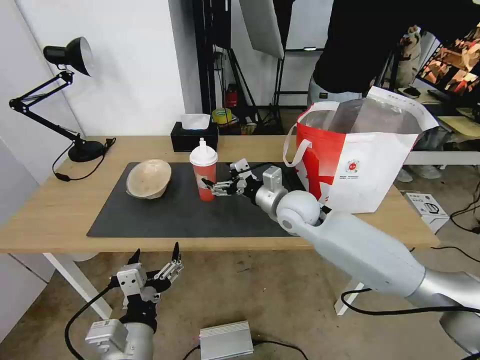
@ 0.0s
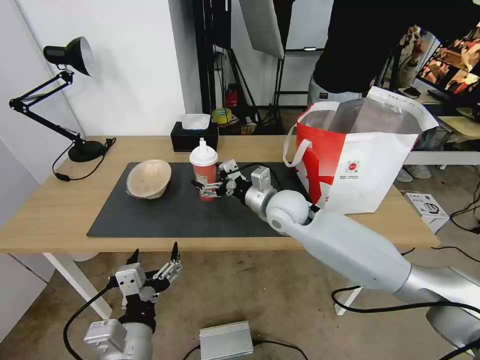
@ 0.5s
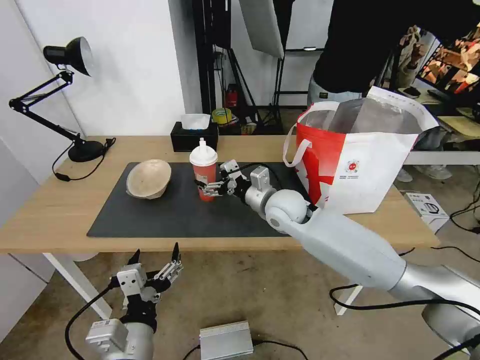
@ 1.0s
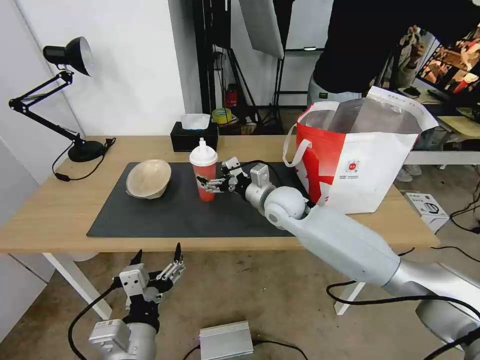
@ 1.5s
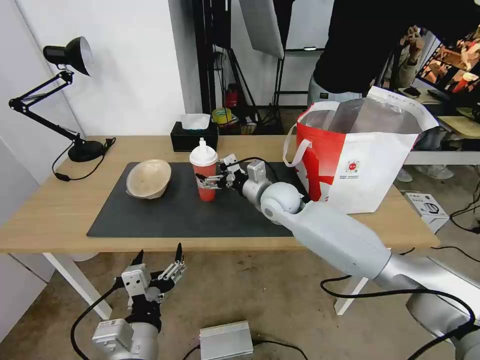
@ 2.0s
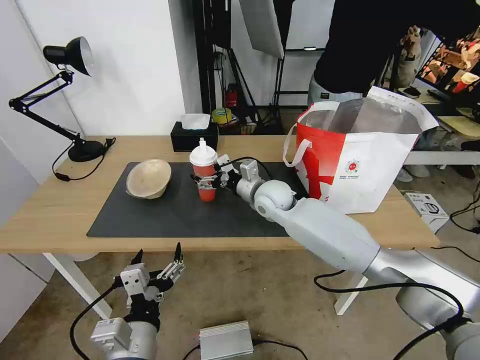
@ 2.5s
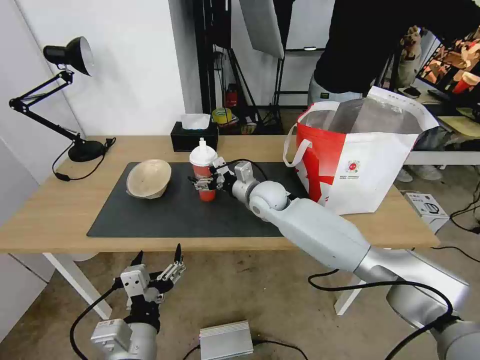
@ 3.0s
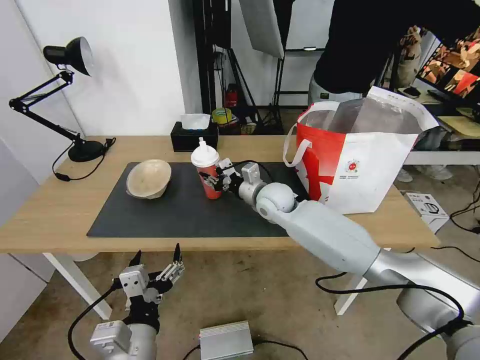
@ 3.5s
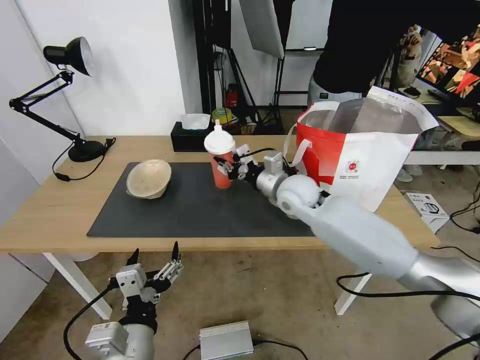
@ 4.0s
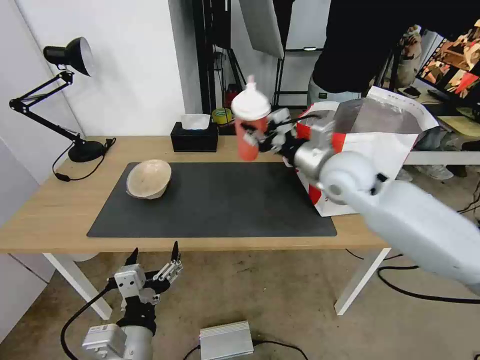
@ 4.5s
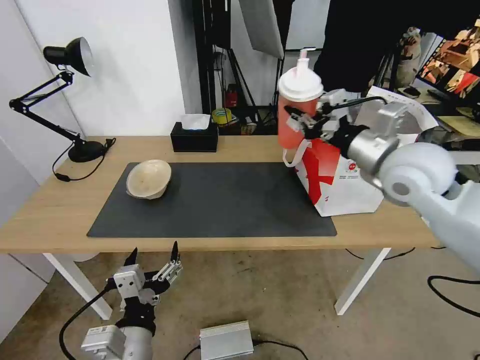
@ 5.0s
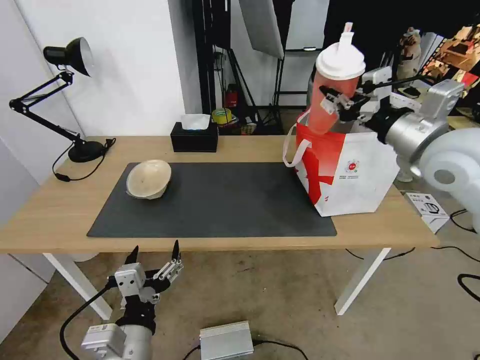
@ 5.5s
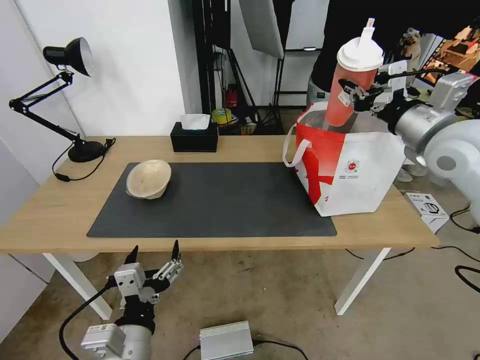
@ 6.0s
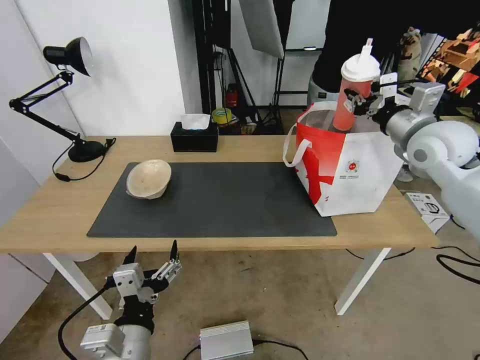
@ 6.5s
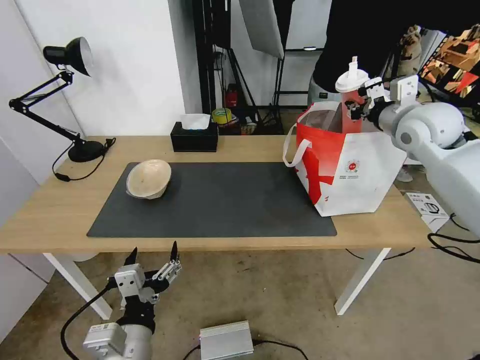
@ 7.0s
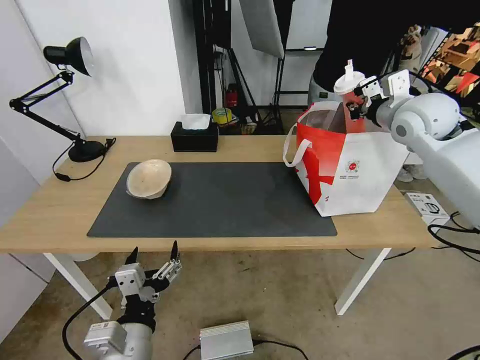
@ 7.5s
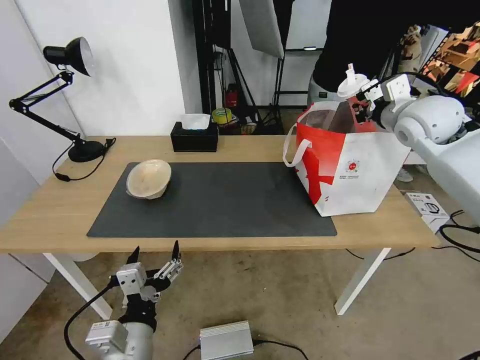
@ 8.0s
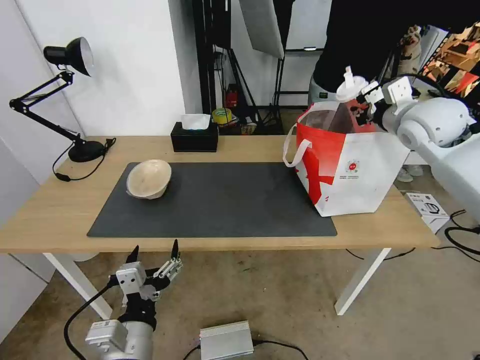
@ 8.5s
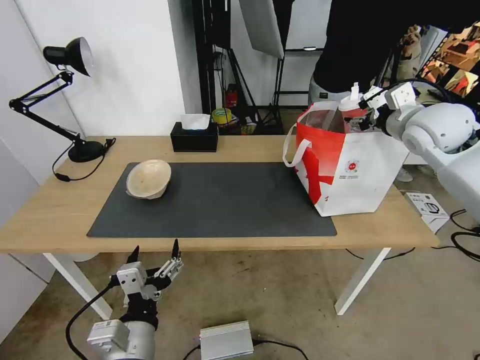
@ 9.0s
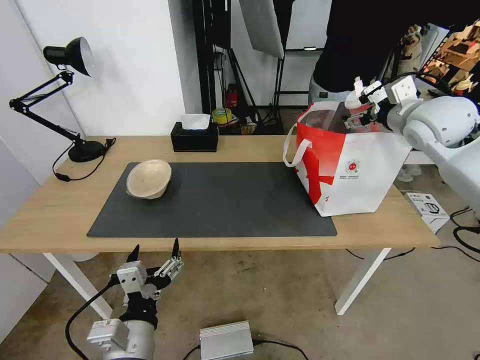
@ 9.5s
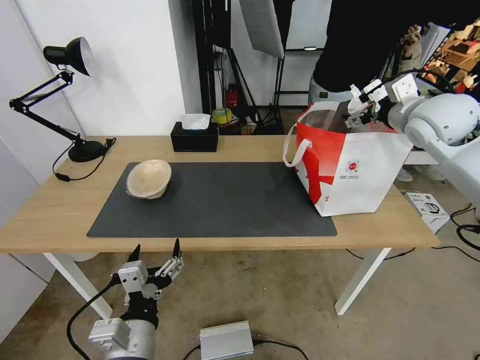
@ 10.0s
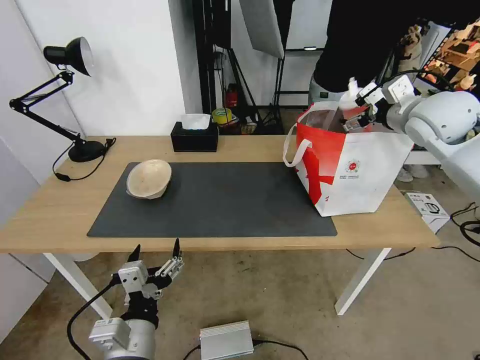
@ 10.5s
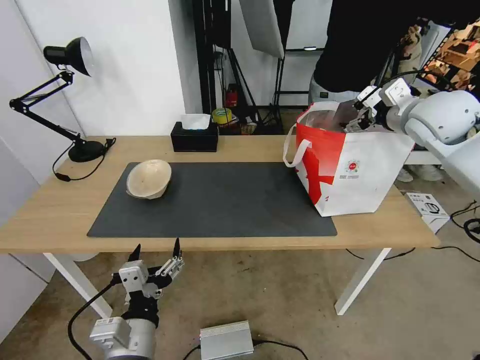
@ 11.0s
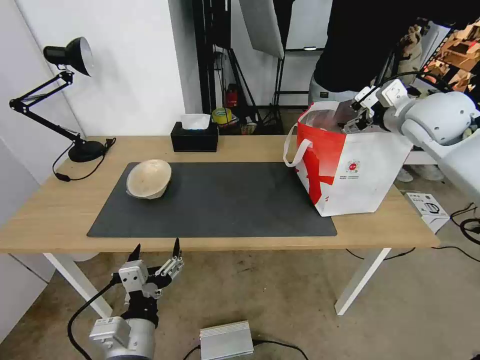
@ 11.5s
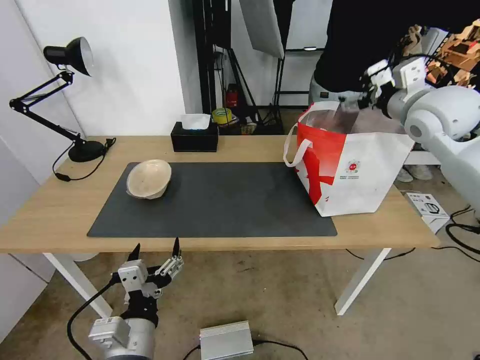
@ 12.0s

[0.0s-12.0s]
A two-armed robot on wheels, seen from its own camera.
Task of the whole recording: Pick up the trash from the table and place it into the takeout bag.
0.0s to 2.0s: The right gripper moves about 5 cm.
2.0s to 4.0s: The right gripper closes up.
4.0s to 6.0s: The right gripper shifts roughly 30 cm to the right and upward.
6.0s to 8.0s: The right gripper heads forward, covering about 10 cm.
8.0s to 10.0s: The right gripper opens.
10.0s to 12.0s: The grippers move only a little.

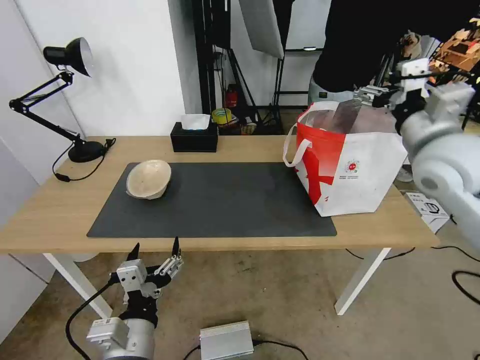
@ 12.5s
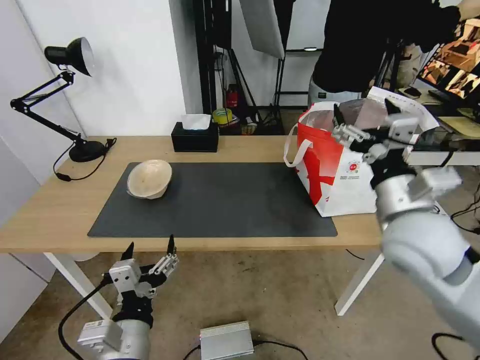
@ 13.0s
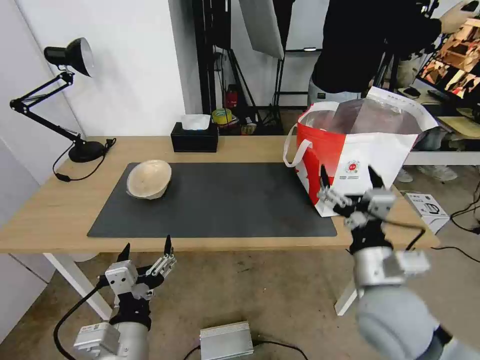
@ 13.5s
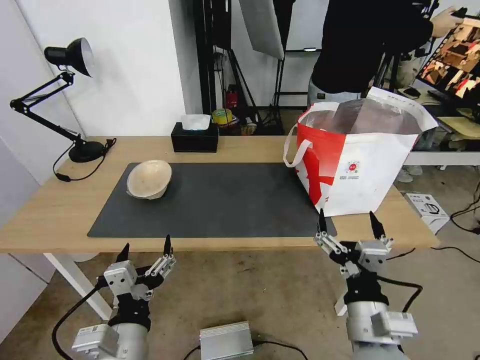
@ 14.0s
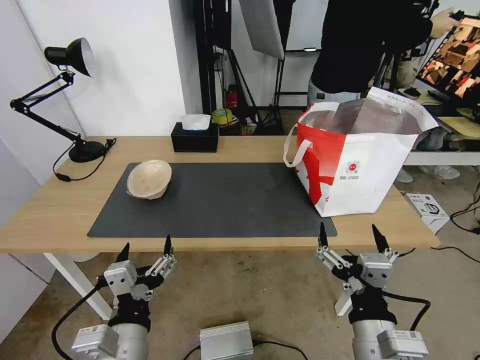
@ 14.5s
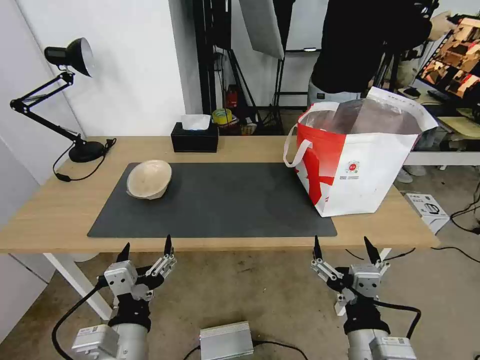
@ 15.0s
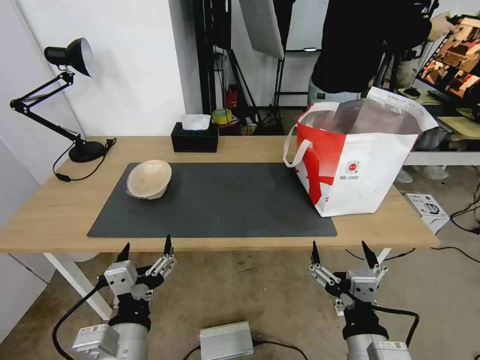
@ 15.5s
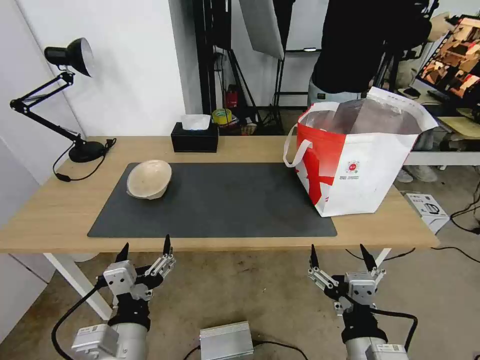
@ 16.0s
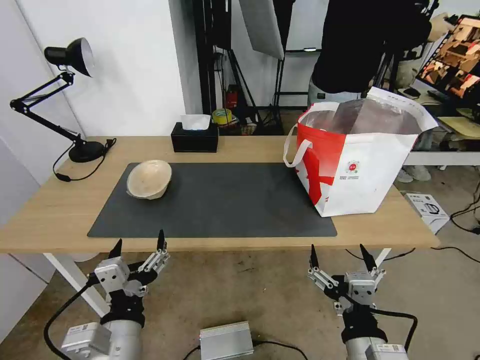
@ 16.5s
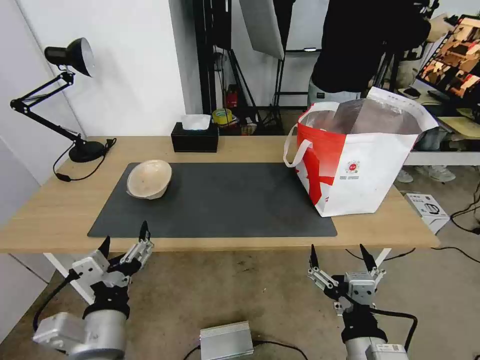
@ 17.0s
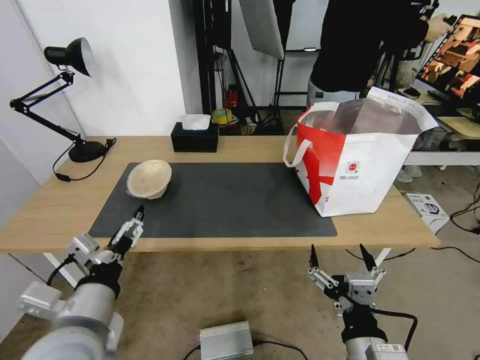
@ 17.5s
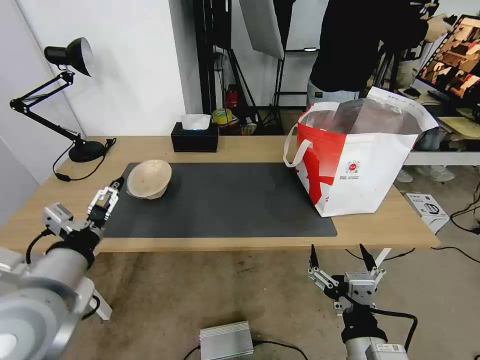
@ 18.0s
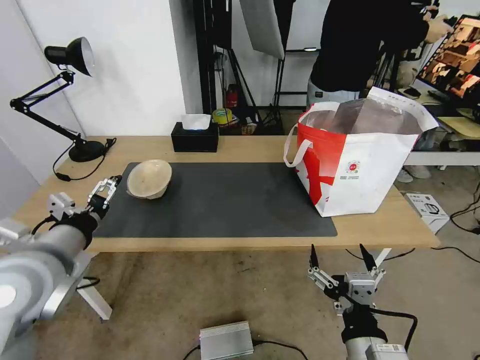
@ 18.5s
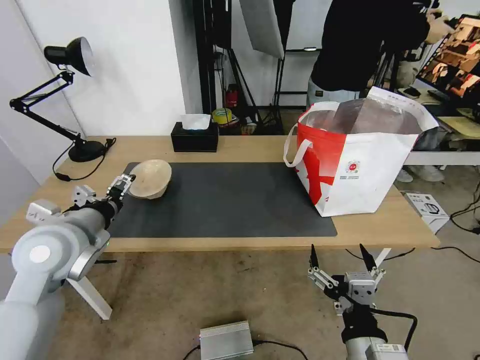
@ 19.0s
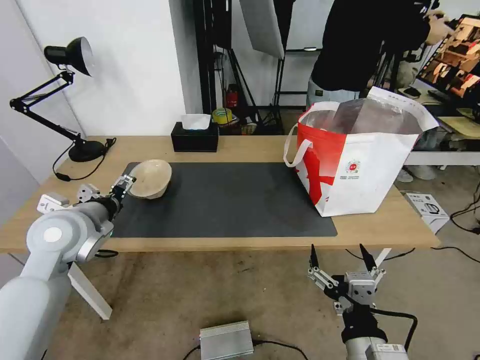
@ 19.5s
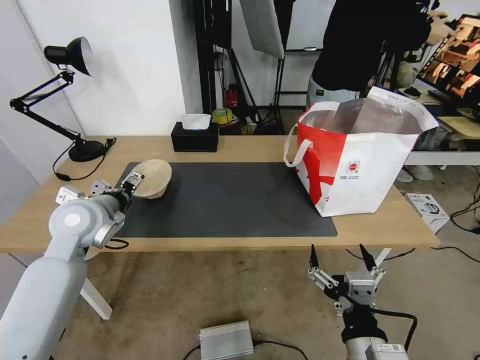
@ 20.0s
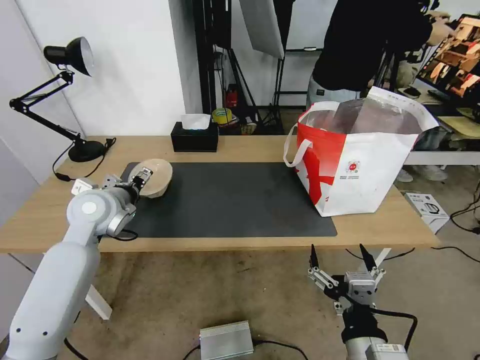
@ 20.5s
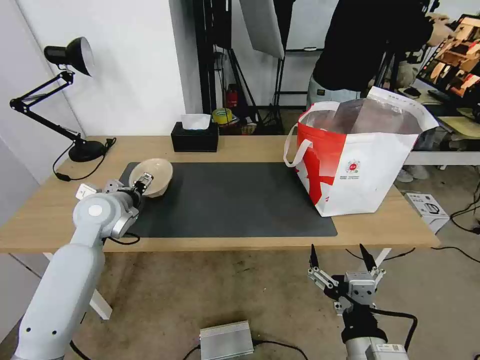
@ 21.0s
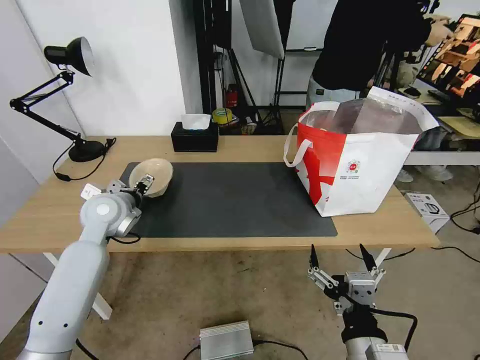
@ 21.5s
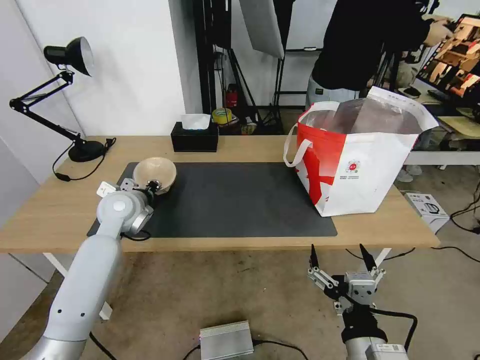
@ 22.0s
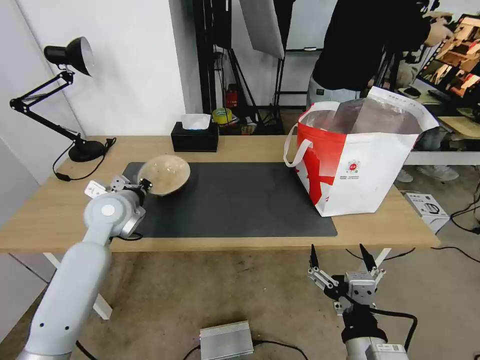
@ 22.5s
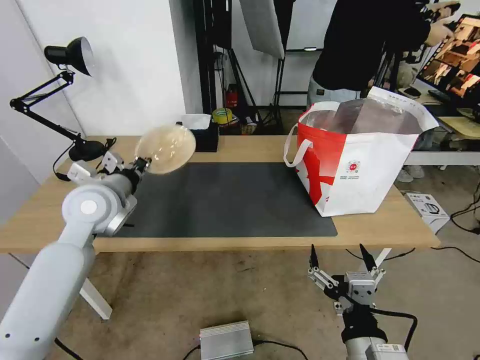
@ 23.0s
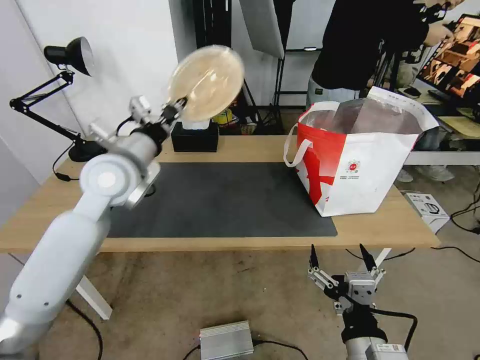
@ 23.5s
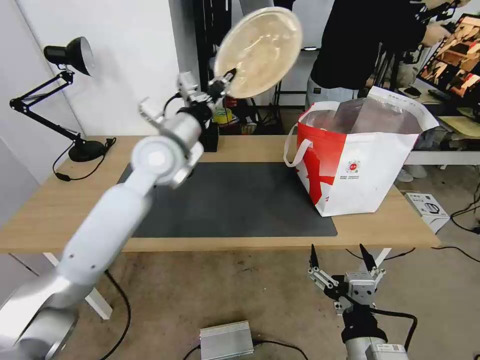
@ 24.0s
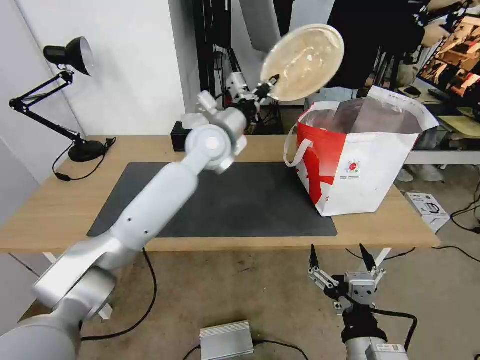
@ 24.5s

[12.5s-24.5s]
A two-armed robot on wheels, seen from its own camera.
Task of the whole recording: Pick up the trash from the table and place it into the takeout bag.
12.5s to 14.5s: The right gripper travels backward, downward and to the left by roughly 35 cm.
14.5s to 16.5s: The grippers make only small movements.
16.5s to 18.5s: The left gripper travels forward, to the left and upward by roughly 20 cm.
18.5s to 20.5s: The left gripper heads forward, covering about 15 cm.
20.5s to 22.5s: The left gripper closes up.
22.5s to 24.5s: The left gripper heads to the right, upward and forward, covering about 25 cm.

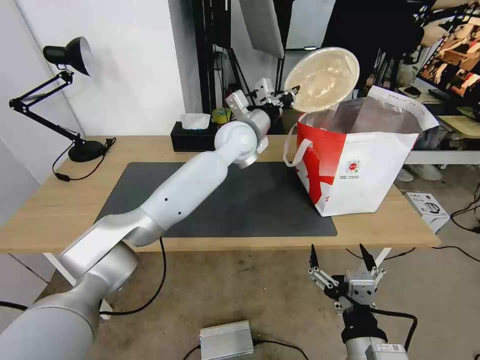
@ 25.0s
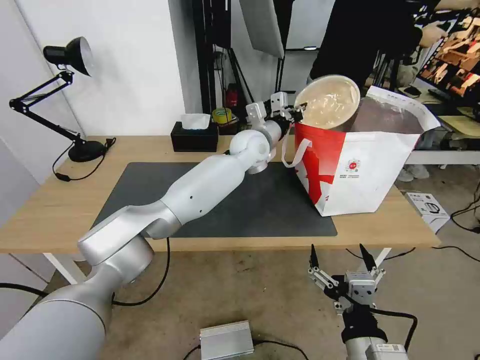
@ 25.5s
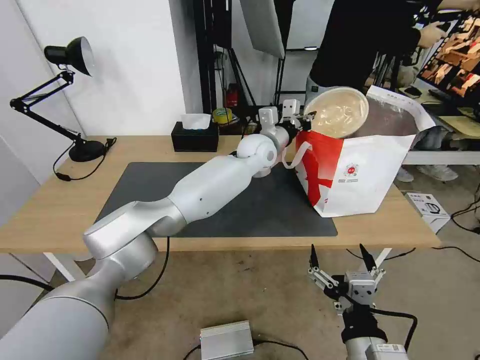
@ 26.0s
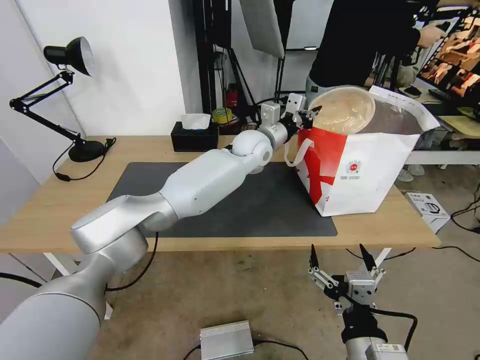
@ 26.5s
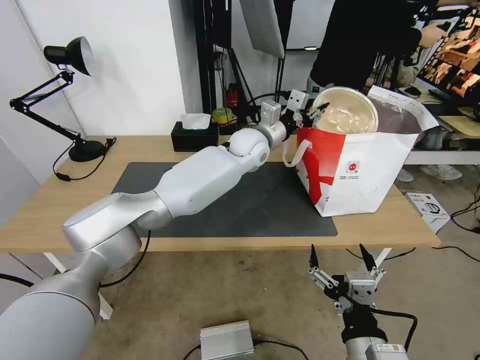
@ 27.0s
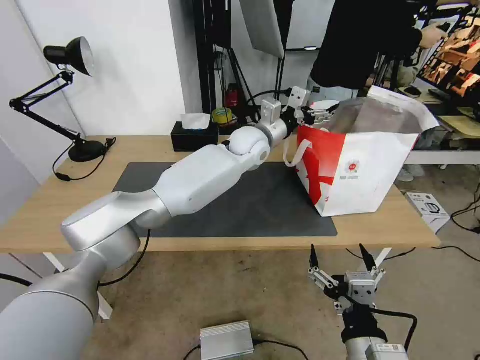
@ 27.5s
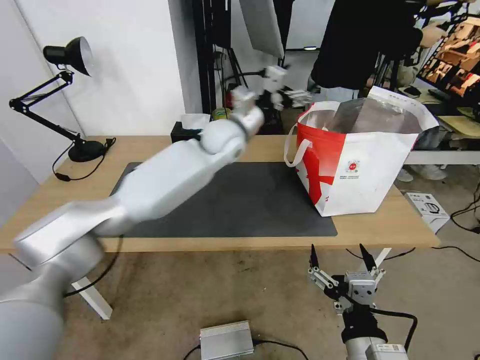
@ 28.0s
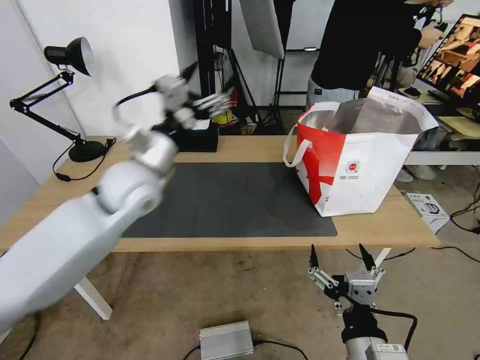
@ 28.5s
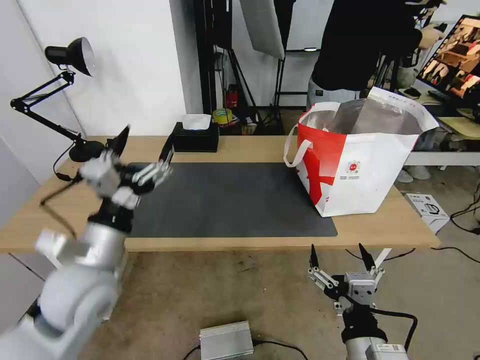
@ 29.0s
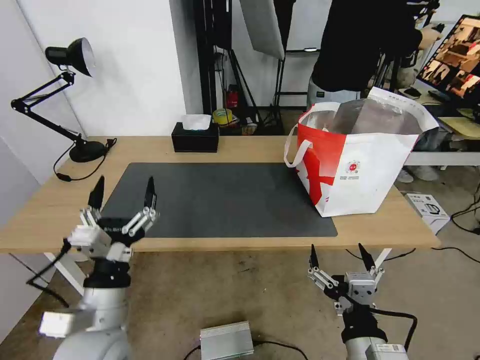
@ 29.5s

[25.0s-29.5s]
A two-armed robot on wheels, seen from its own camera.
Task of the whole recording: Pick up the trash from the table and place it into the takeout bag.
25.0s to 27.0s: The left gripper opens.
27.0s to 29.5s: The left gripper is displaced backward and to the left by some 50 cm, and opens its fingers.
